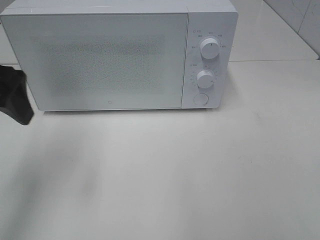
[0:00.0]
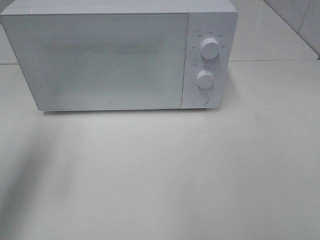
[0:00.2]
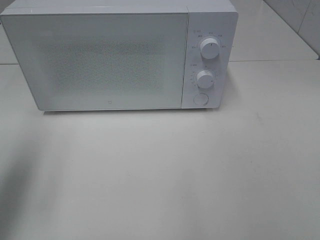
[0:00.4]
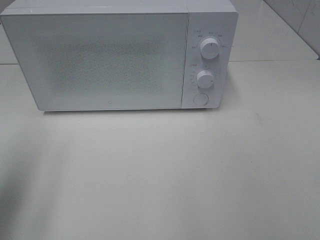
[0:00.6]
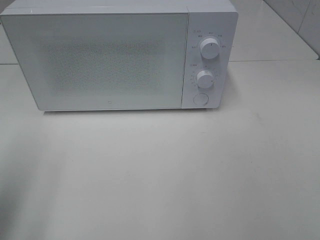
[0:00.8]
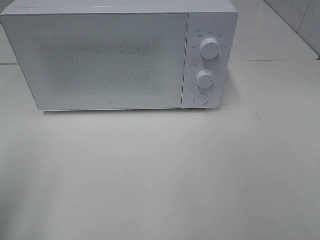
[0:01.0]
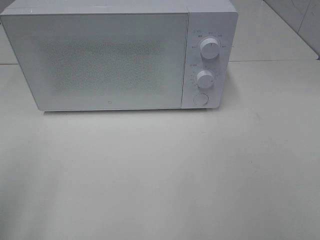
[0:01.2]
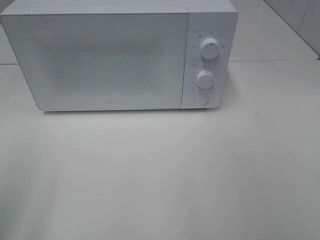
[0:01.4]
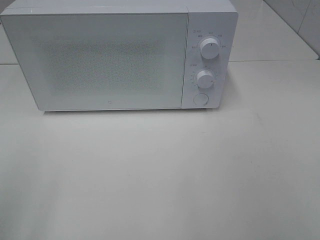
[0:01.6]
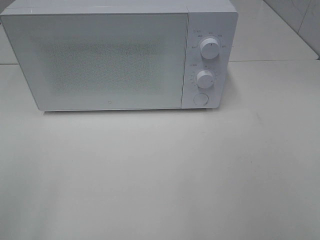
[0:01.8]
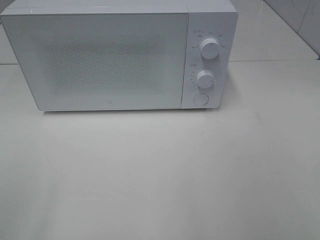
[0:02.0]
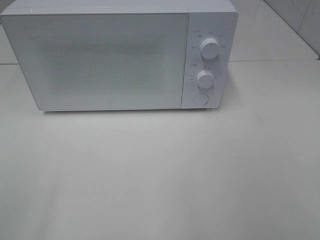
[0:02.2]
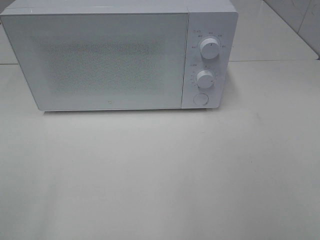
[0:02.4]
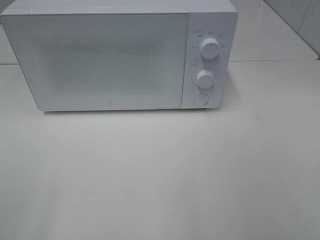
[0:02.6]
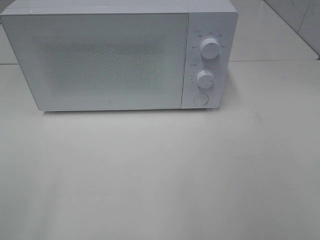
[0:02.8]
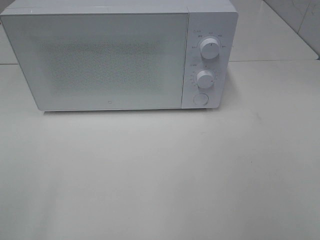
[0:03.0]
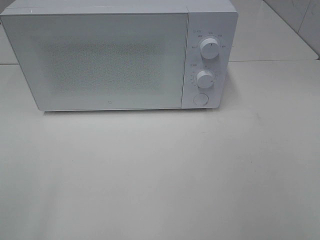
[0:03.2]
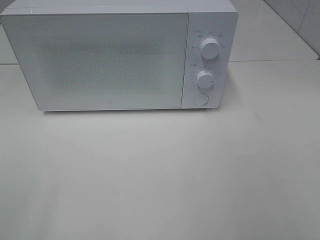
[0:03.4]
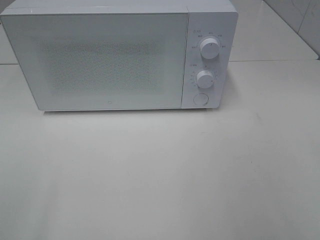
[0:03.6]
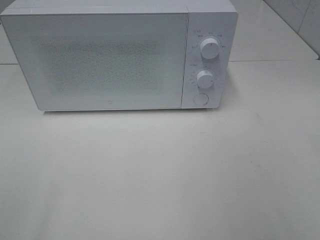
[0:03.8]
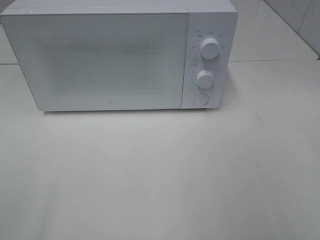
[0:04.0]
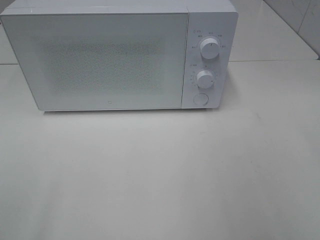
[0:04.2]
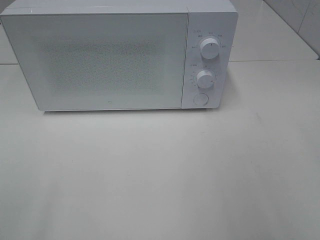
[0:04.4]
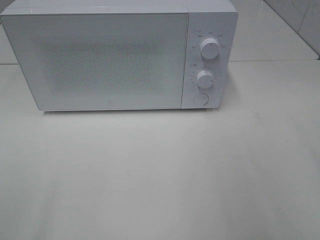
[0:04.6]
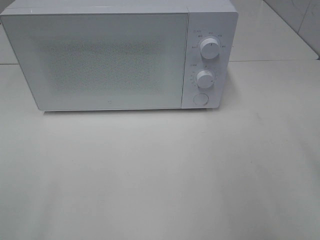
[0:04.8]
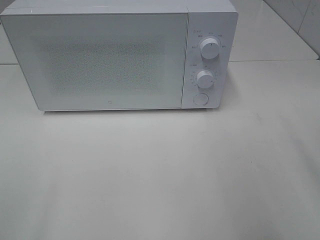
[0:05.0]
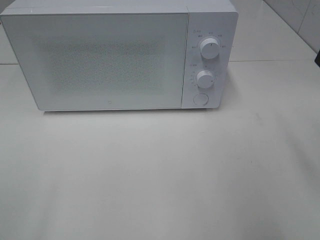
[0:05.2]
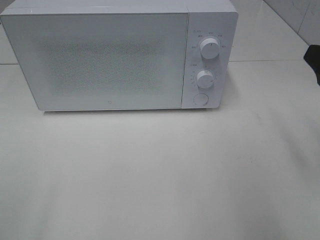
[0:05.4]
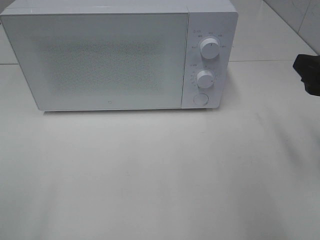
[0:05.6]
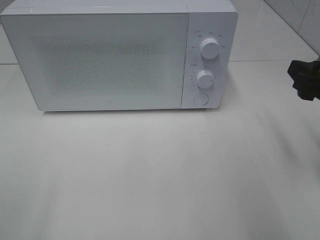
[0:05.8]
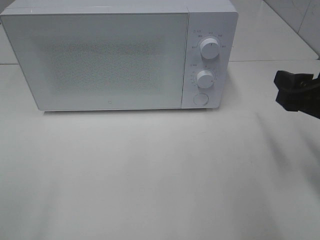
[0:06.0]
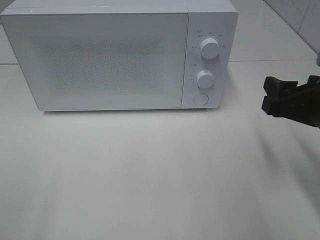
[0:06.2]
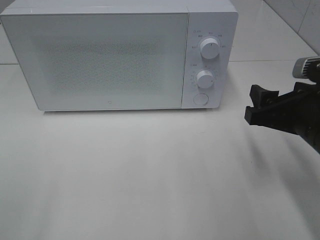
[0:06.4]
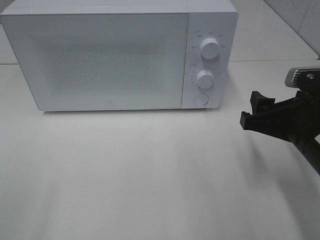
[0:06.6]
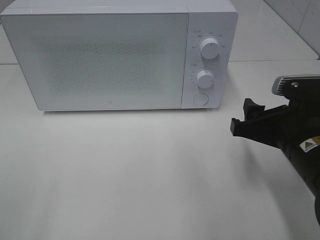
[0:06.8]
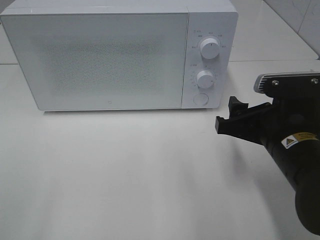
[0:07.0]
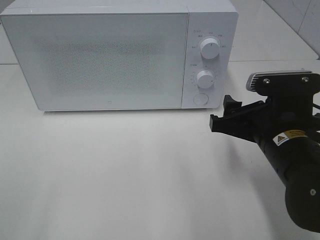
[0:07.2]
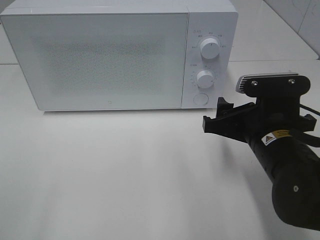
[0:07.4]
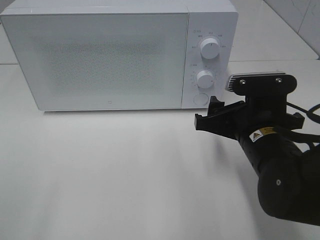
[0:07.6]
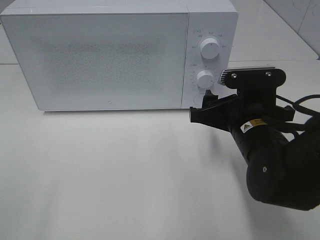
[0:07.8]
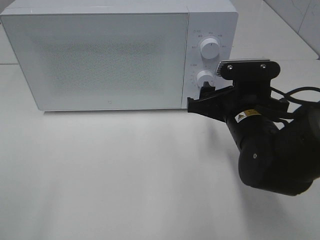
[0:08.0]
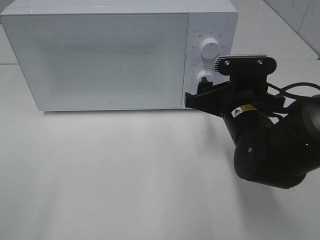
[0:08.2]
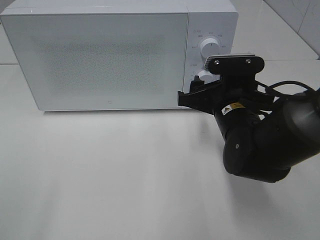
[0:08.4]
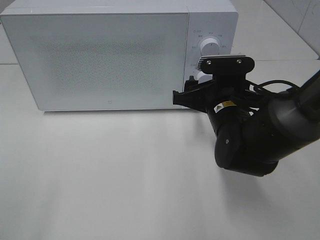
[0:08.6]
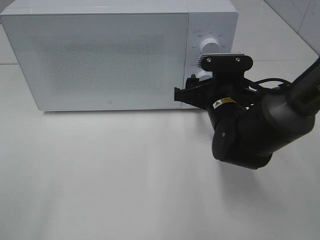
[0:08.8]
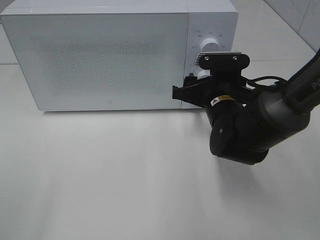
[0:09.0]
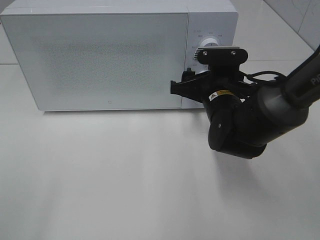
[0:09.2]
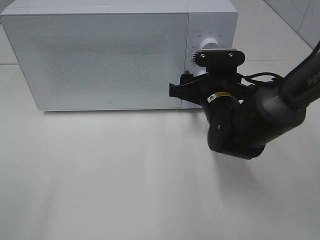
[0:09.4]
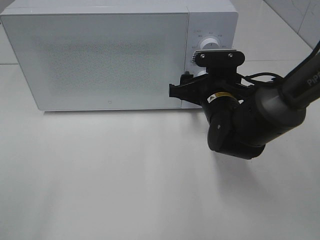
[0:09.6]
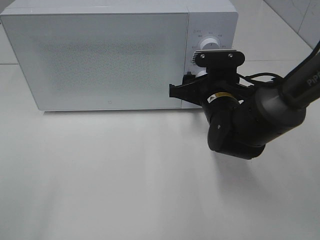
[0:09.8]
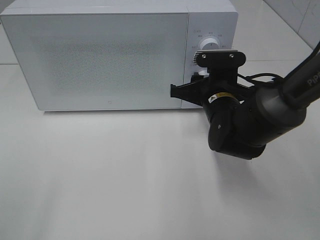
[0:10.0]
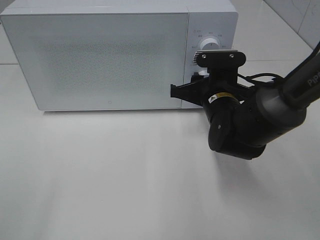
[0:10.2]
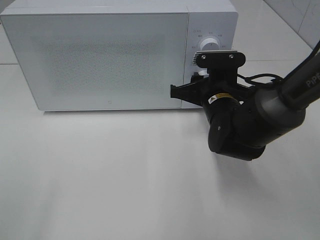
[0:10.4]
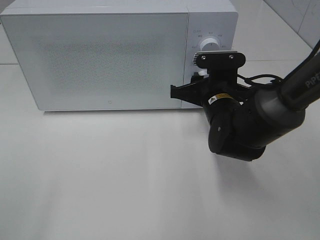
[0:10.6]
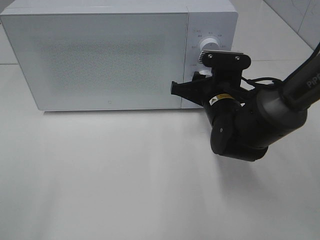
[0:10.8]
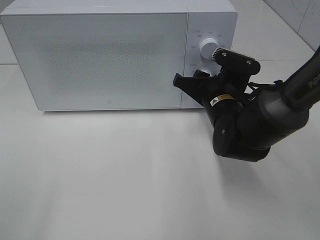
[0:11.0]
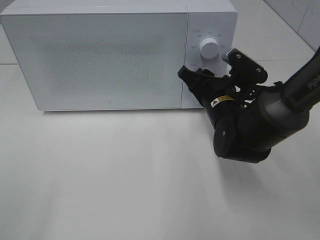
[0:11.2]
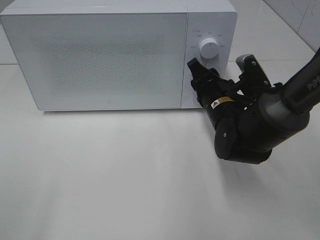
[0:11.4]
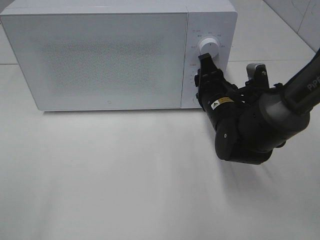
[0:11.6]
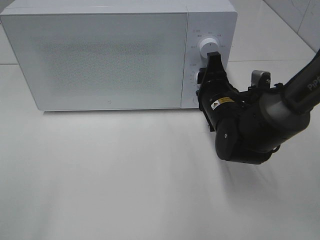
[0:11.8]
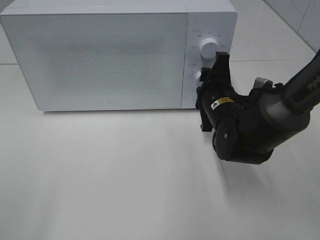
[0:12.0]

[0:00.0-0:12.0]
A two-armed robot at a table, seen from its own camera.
Task of the whole recording: Heat the burger.
0:00.0 to 0:01.6: The left gripper heads backward, covering roughly 20 cm.
0:04.4 to 0:06.0: The right gripper shifts some 15 cm downward and forward.
0:06.0 to 0:07.6: The right gripper goes some 10 cm to the left and downward.
0:07.6 to 0:09.0: The right gripper heads forward, covering roughly 10 cm.
0:09.0 to 0:10.4: The right gripper closes up.

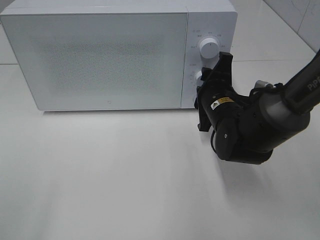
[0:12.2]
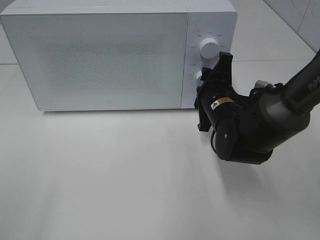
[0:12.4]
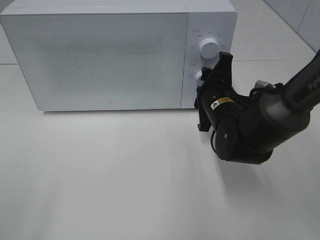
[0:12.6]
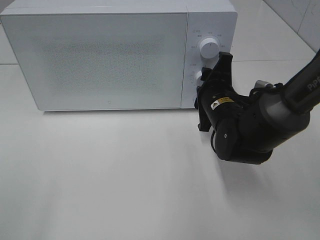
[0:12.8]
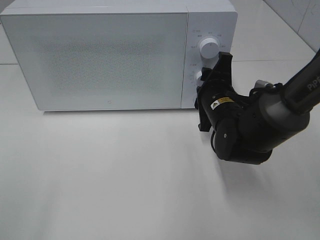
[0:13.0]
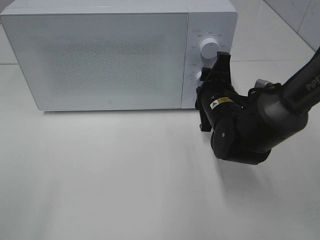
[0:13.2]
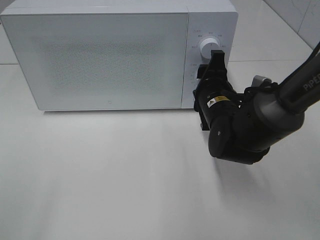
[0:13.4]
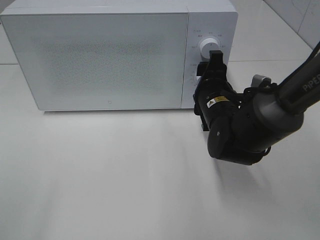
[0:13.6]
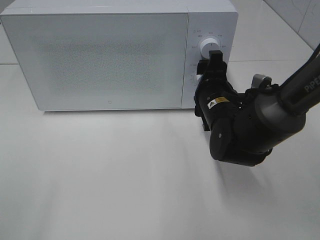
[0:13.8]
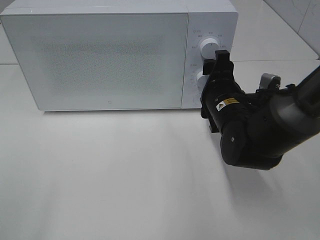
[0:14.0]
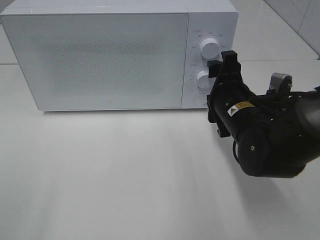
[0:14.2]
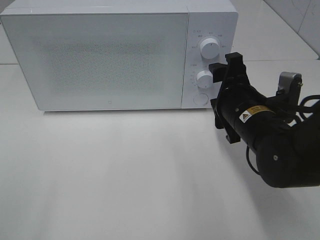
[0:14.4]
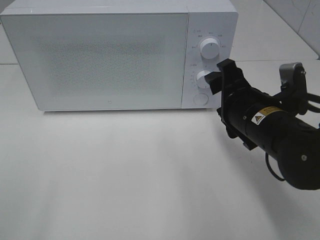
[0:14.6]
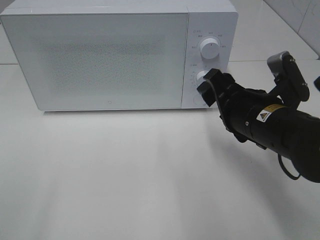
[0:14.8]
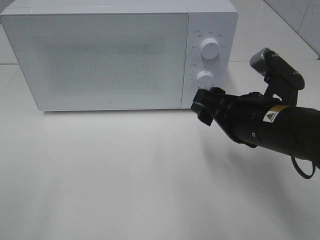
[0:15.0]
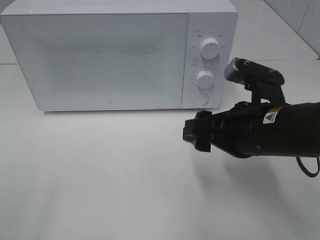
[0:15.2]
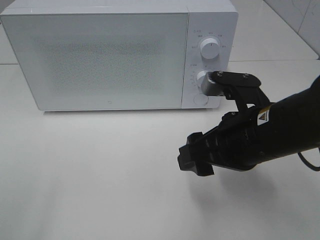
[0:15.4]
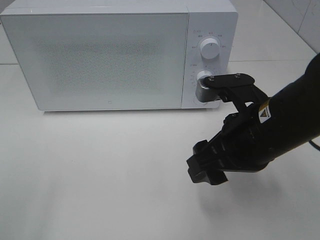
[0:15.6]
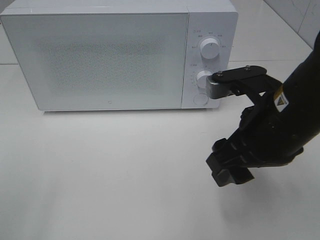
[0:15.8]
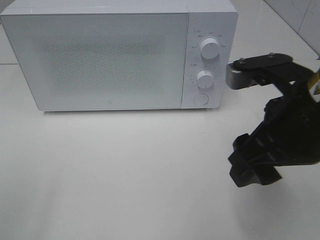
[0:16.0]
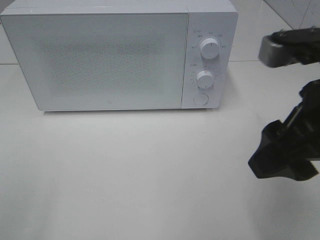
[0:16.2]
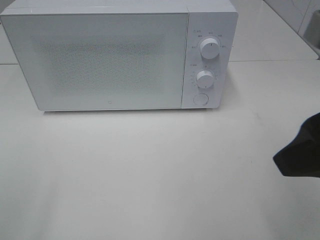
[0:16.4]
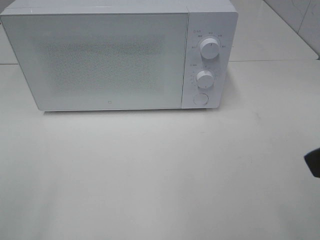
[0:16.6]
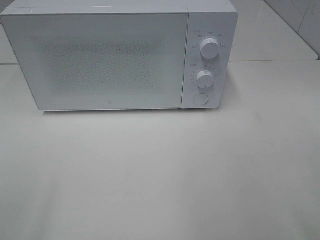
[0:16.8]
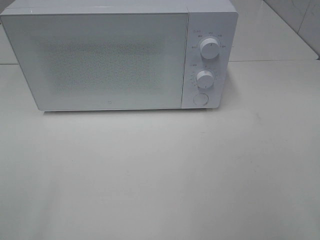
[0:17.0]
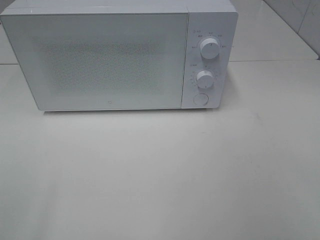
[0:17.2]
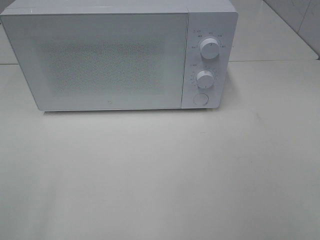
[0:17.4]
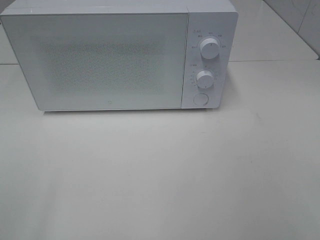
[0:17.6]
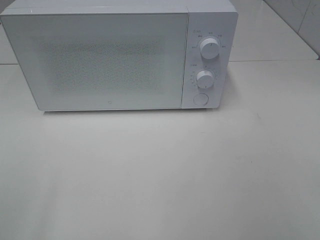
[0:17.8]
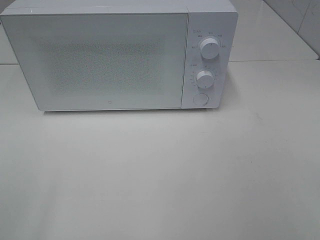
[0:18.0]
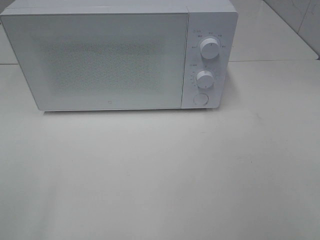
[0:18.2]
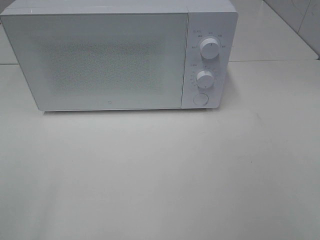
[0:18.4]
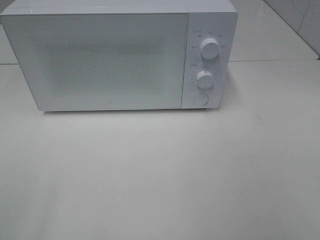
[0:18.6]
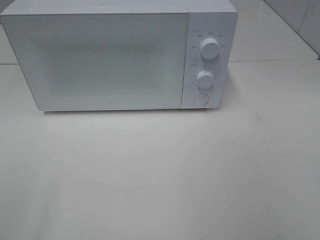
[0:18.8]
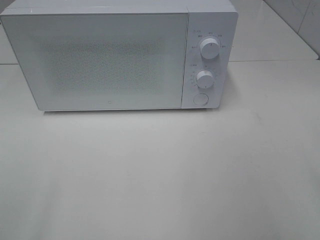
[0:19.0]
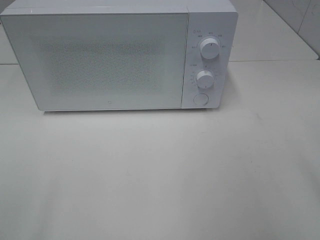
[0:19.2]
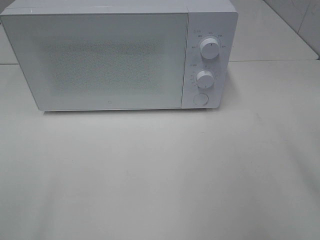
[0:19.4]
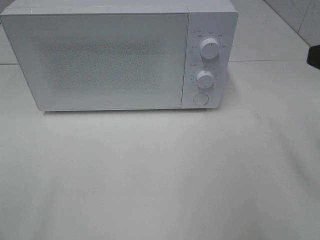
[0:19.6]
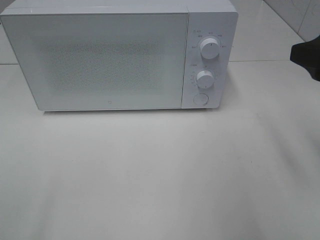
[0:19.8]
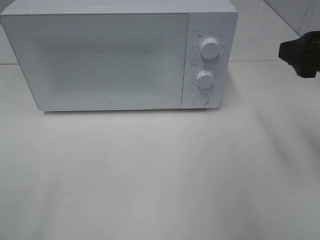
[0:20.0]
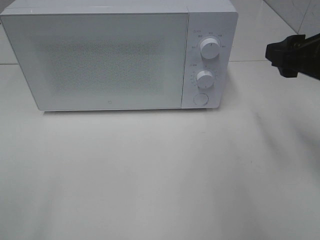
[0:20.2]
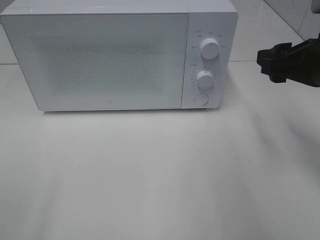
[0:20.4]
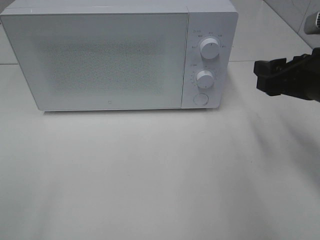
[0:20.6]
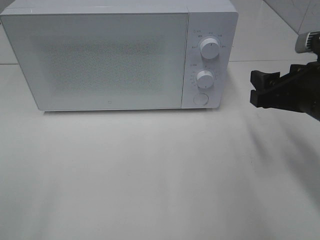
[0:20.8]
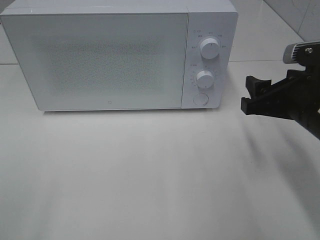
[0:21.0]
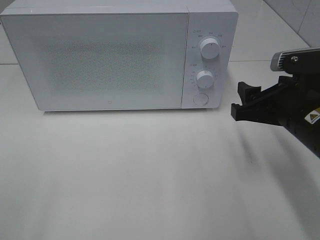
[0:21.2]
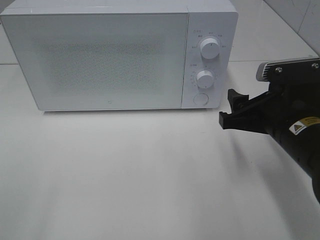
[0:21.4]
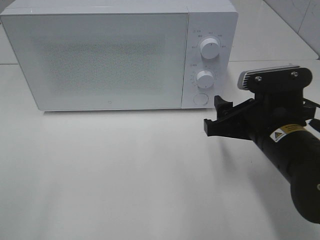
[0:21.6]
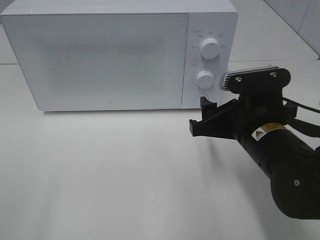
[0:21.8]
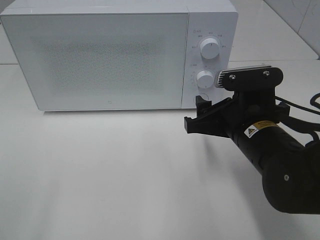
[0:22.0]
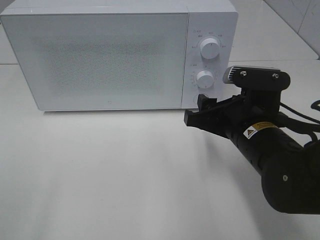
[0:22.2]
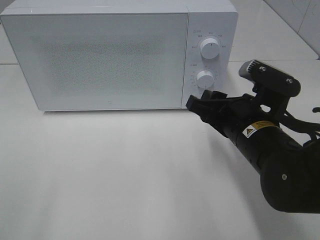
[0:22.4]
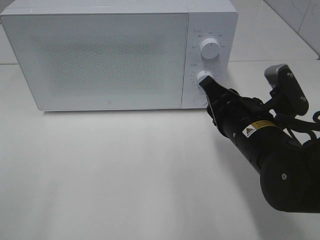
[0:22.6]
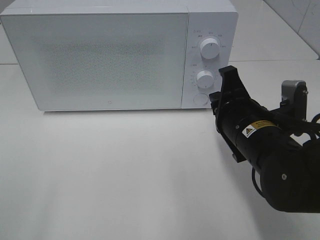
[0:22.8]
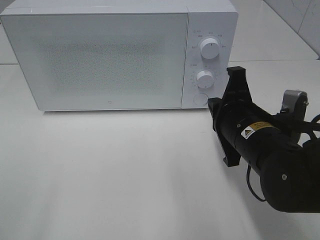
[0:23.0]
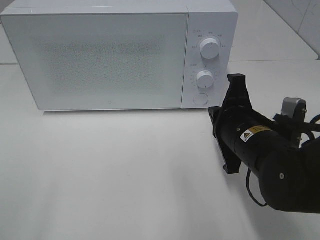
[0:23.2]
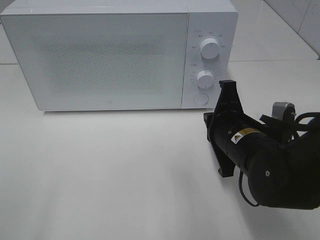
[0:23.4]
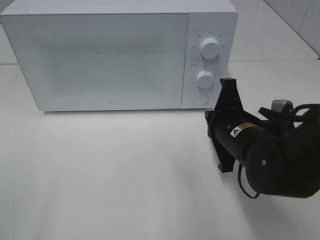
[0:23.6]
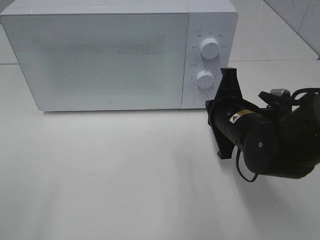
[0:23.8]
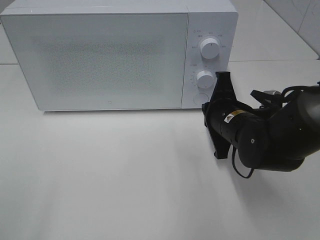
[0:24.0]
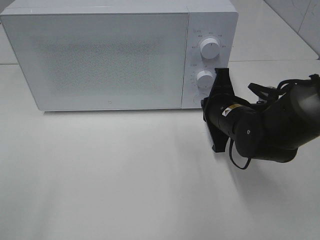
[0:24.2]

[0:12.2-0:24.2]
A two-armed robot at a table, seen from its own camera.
Task of the whole recording: Heat the burger.
0:12.2 to 0:13.8: The grippers stay close to where they were, moving slightly.
0:13.8 to 0:15.2: The right gripper goes roughly 15 cm backward and upward.
0:15.2 to 0:16.6: The right gripper heads upward, backward and to the right, covering roughly 20 cm.
0:18.2 to 0:19.8: The right gripper moves forward, approximately 20 cm.
0:19.8 to 0:21.2: The right gripper goes about 10 cm downward and to the left.
0:21.2 to 0:22.6: The right gripper shifts roughly 5 cm to the left, and closes.
0:22.6 to 0:24.2: The right gripper is displaced forward by approximately 10 cm, and closes its fingers.
